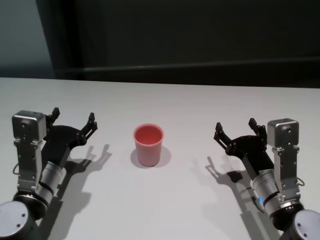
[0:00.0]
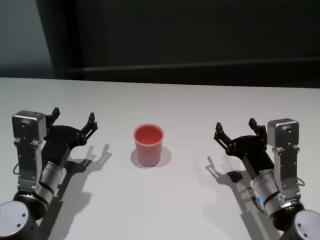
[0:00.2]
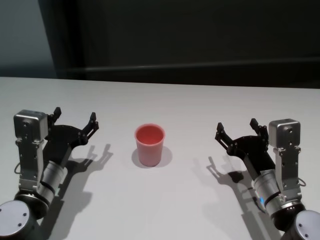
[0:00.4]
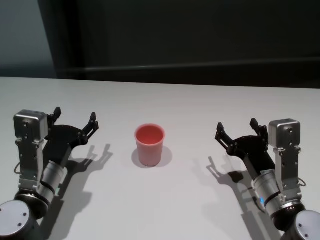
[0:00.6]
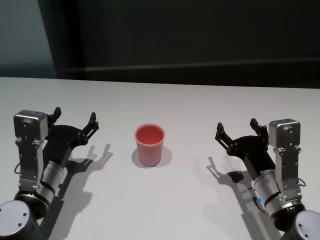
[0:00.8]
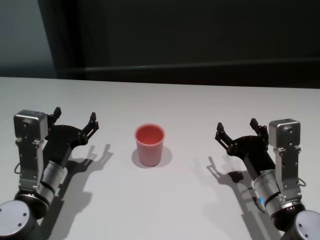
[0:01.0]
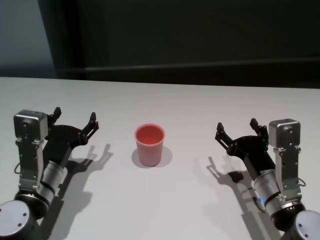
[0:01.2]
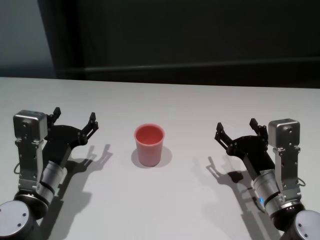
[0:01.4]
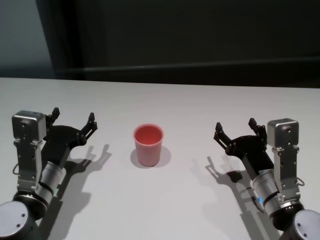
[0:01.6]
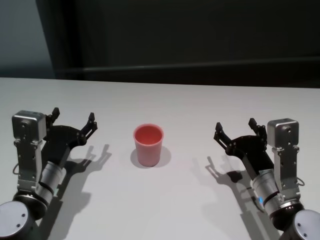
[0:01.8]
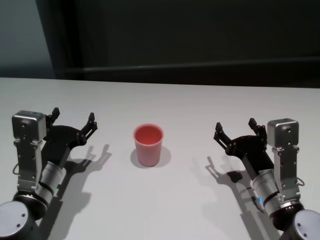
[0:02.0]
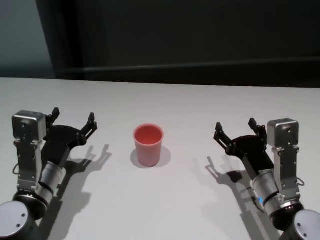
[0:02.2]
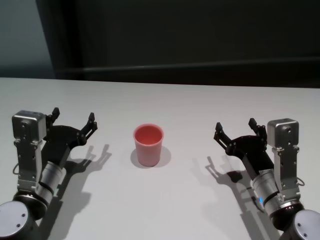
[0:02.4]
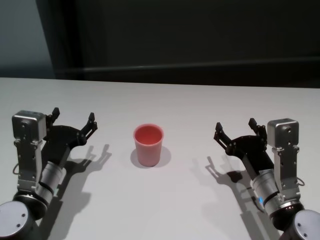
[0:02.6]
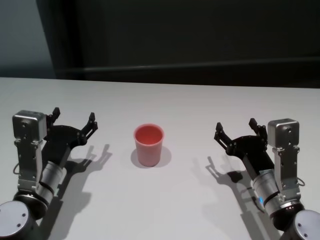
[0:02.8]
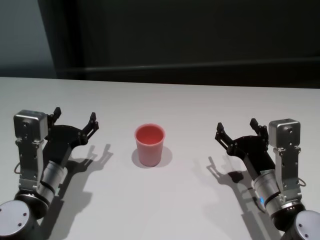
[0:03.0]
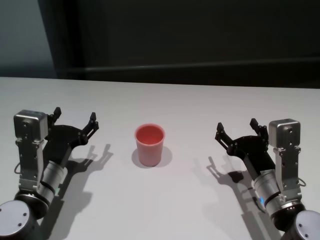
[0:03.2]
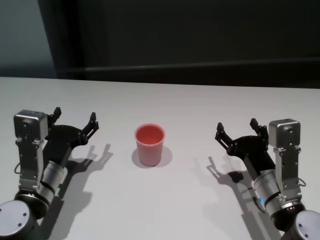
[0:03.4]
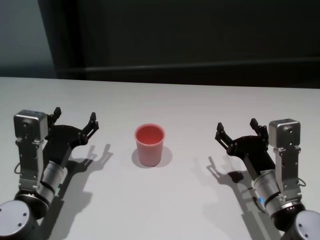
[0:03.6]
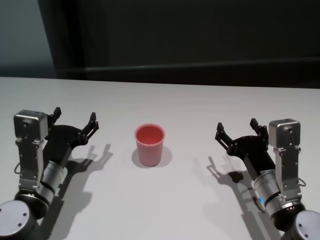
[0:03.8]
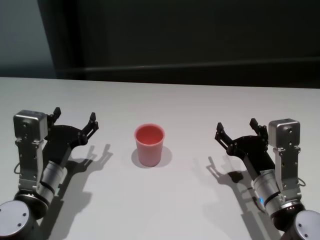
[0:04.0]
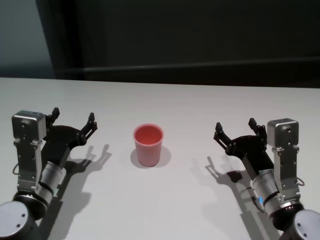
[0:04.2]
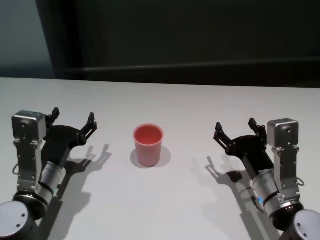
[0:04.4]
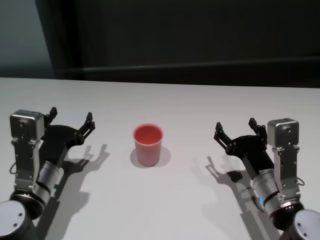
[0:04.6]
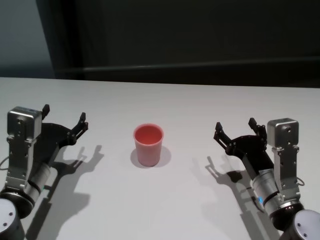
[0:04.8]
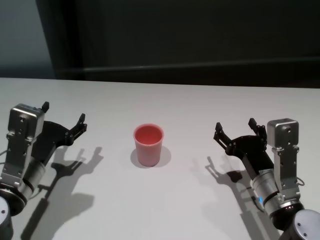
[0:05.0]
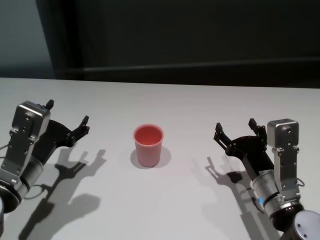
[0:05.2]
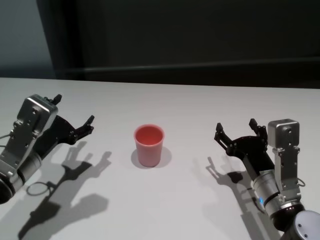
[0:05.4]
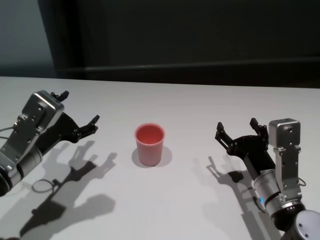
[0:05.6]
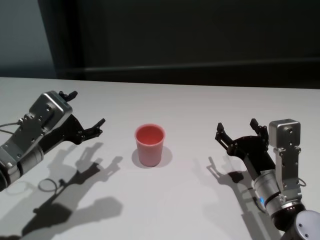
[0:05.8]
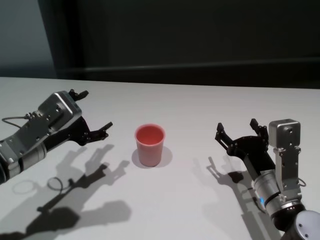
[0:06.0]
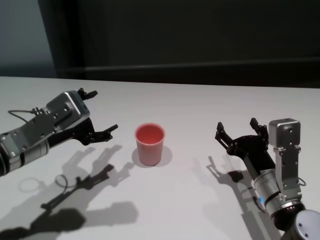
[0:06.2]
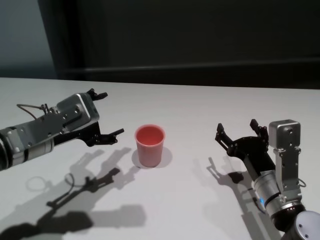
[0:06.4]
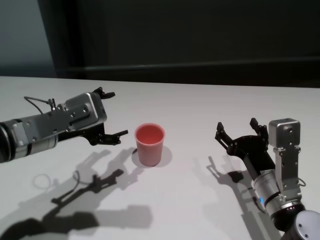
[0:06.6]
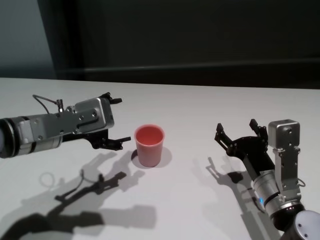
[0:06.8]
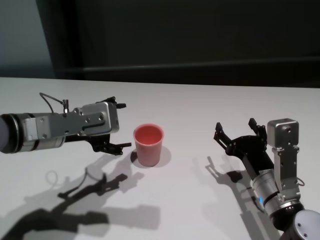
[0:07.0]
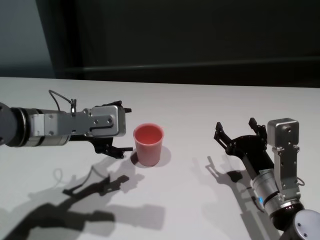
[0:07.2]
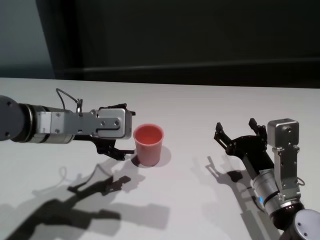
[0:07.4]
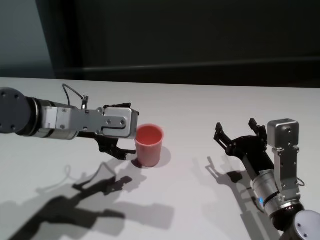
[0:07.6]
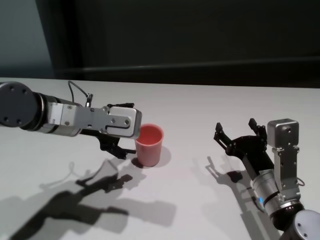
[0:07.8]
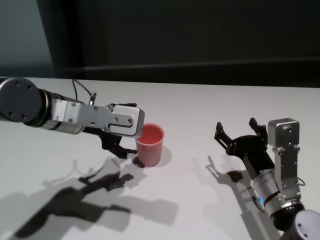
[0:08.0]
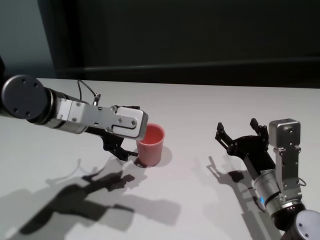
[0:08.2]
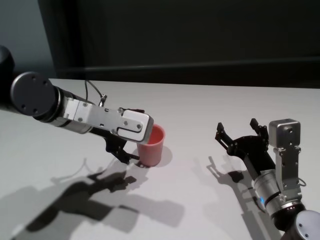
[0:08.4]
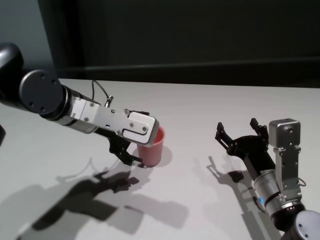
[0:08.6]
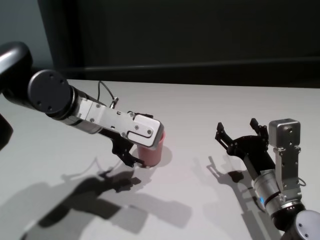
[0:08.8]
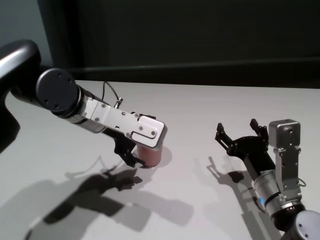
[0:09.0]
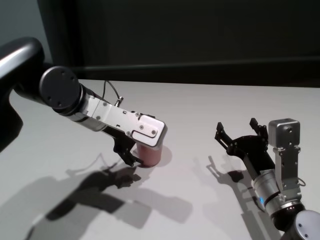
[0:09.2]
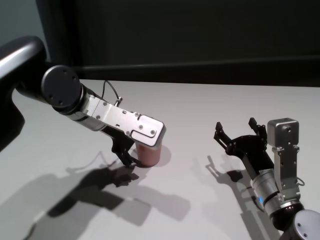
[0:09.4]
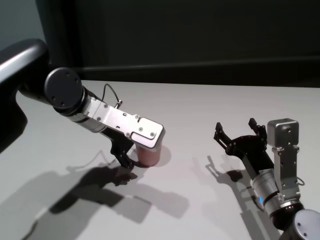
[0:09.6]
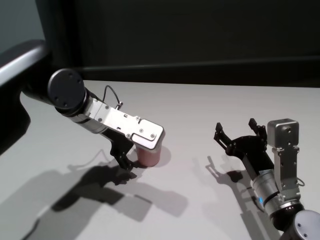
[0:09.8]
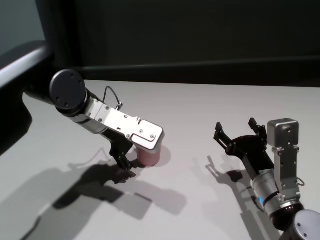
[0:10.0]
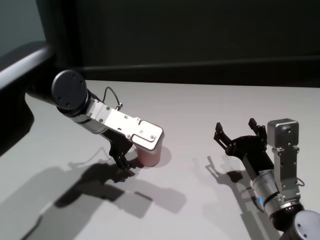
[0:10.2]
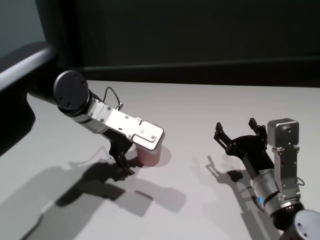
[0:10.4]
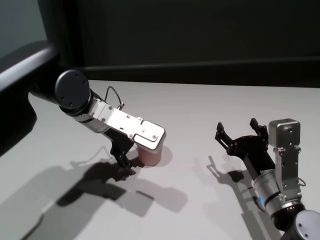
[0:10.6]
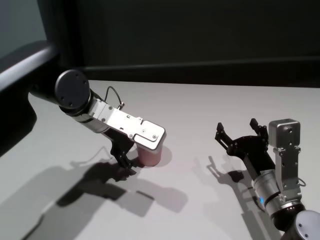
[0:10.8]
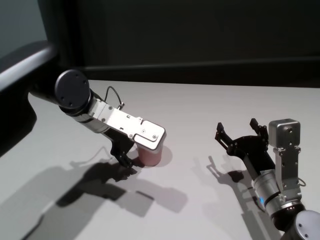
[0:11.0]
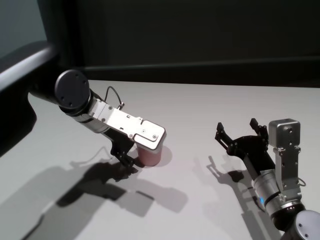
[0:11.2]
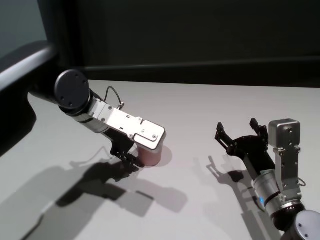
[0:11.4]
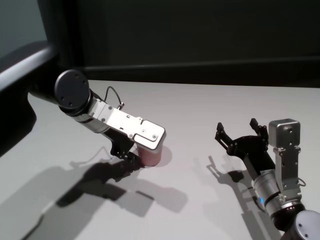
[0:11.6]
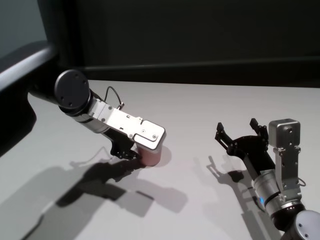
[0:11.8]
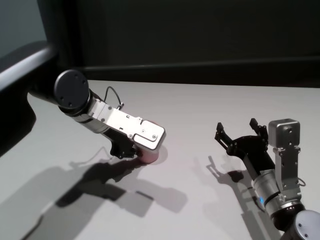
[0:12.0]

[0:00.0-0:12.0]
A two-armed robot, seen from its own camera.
Task of the whole recording: On the white table pick up the cup with one hand and transfer it to the other hand before turning it over.
Step, 0:00.0 to 0:11.8: Grasp the cup with left gripper.

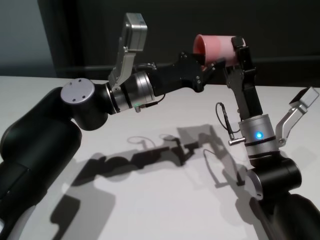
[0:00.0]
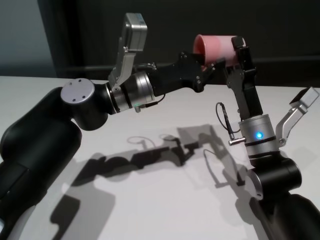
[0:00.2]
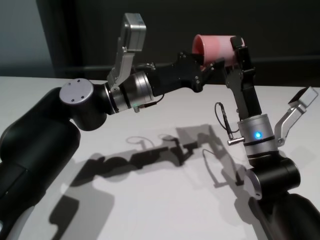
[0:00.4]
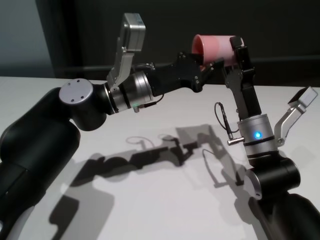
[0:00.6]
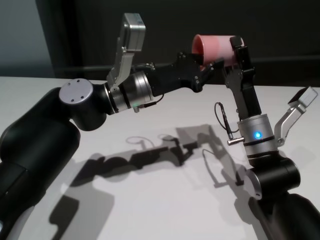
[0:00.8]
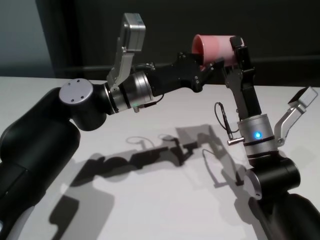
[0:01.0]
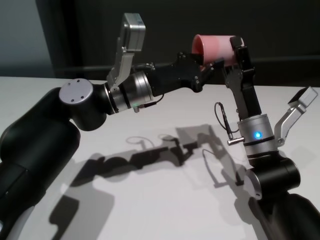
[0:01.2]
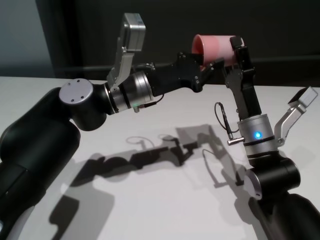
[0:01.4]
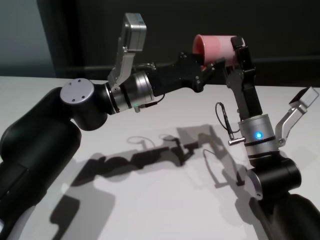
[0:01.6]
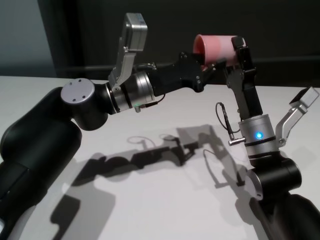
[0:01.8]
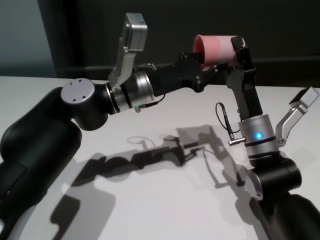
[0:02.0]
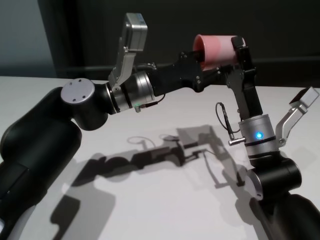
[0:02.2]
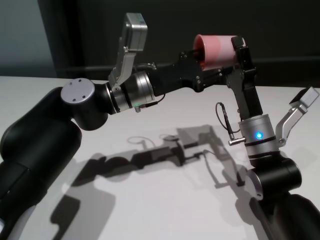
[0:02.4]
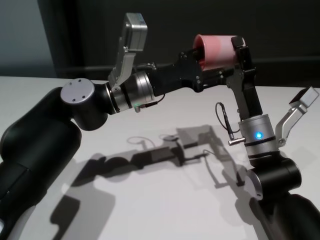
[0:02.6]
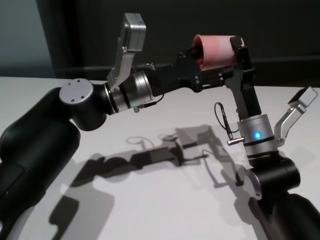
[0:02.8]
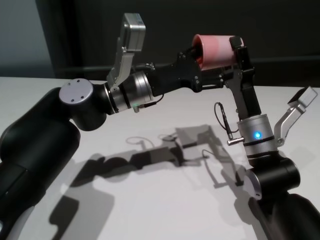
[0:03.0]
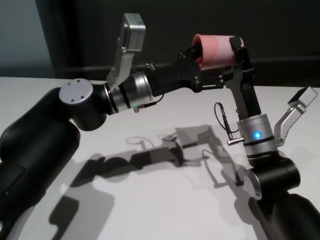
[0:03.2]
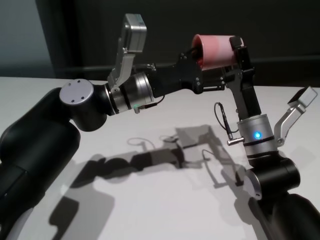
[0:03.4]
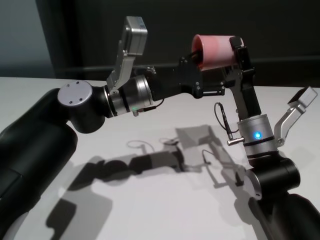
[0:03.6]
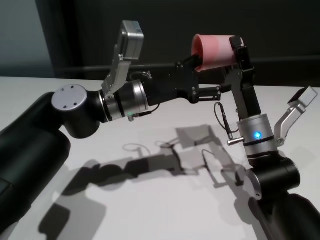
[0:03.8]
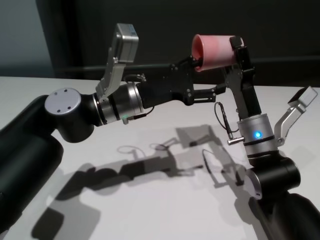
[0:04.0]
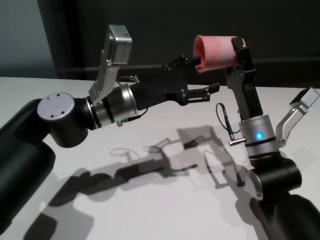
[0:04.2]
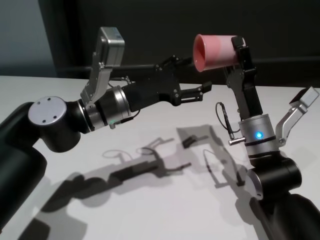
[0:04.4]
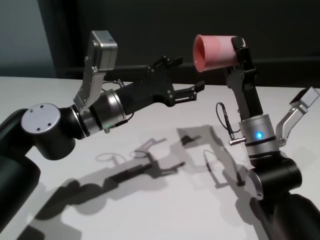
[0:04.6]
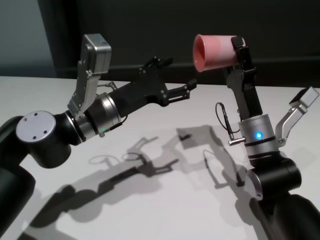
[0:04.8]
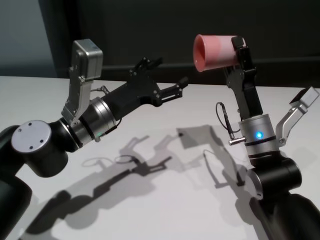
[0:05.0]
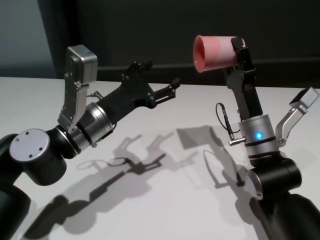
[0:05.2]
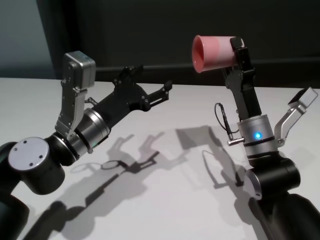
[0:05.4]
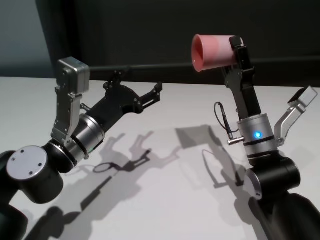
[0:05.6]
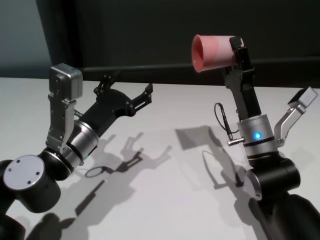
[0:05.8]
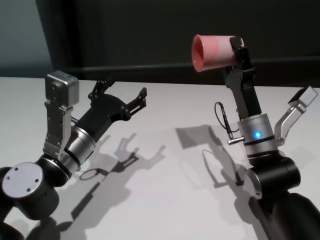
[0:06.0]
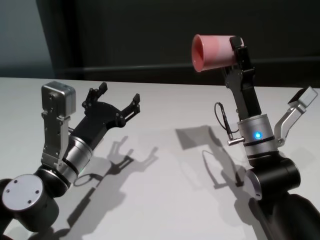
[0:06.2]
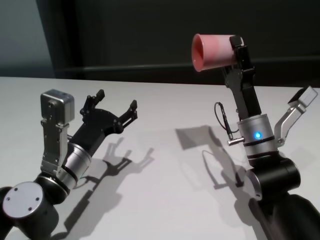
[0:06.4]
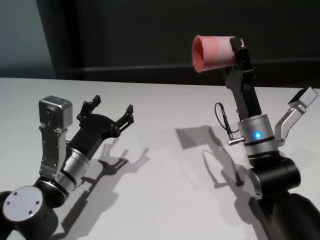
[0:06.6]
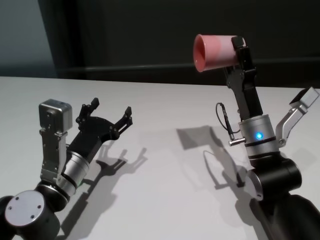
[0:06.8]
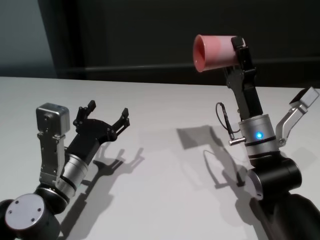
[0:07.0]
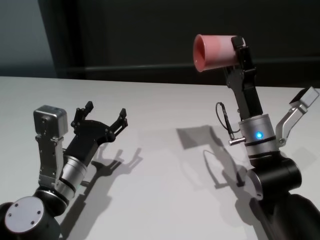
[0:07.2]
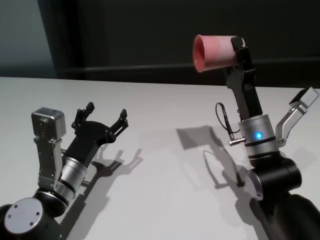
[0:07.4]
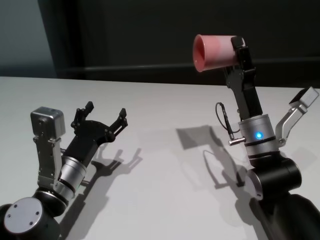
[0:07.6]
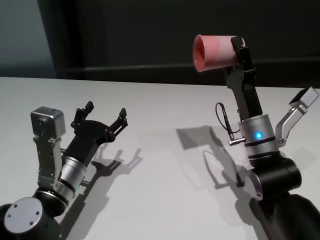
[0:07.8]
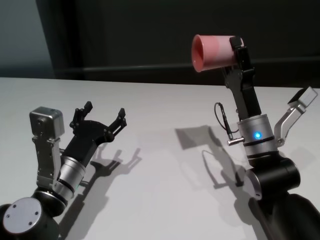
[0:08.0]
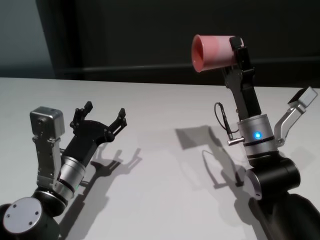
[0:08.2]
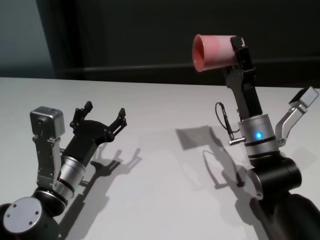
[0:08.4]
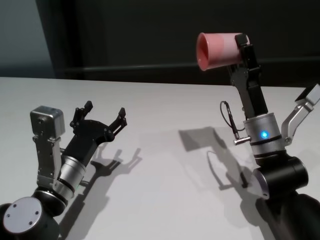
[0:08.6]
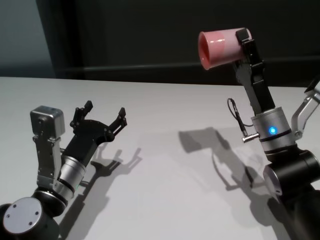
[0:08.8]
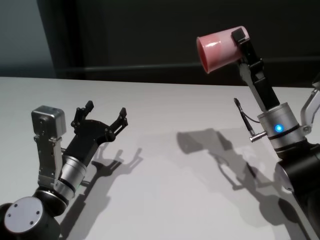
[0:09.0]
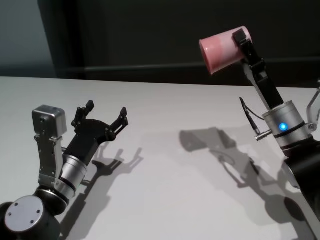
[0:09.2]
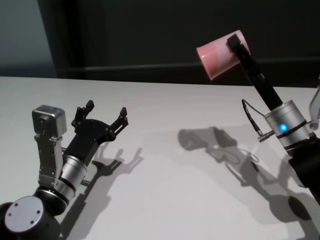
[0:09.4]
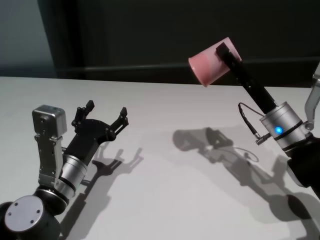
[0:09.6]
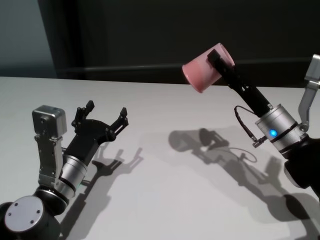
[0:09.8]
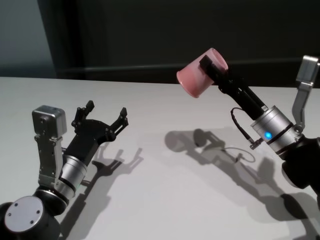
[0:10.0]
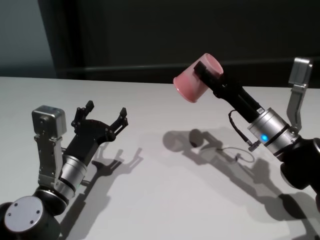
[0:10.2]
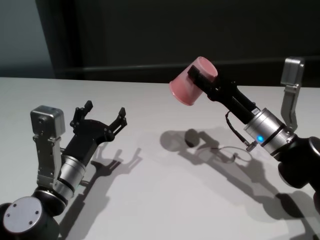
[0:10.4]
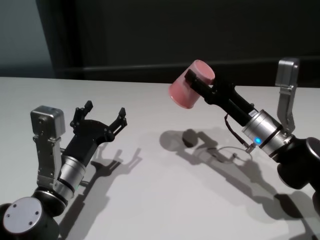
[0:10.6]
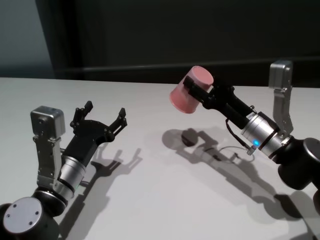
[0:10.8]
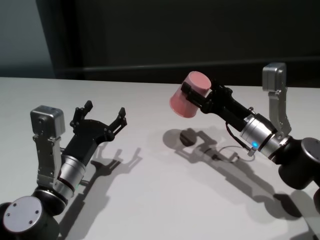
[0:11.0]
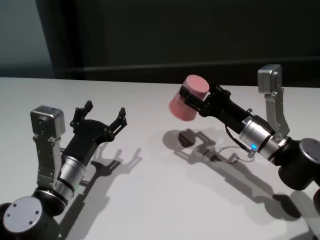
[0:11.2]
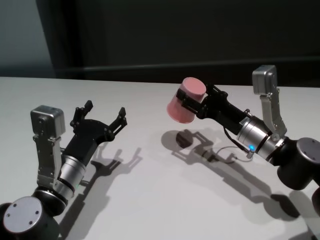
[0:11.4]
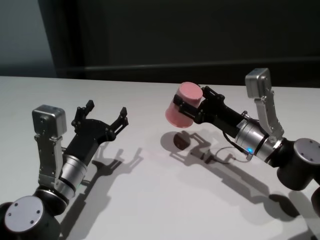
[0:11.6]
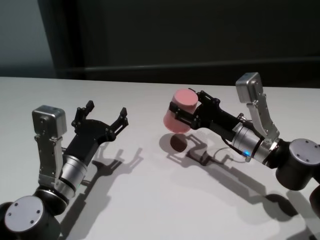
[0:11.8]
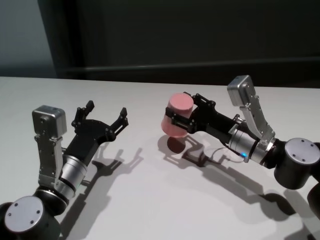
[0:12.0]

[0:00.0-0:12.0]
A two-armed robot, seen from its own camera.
Task of the whole recording: On the white table pick up the cup with one hand and transfer it to the other hand before turning it over.
Step, 0:00.0 to 0:04.6: Pass the cup to the right gripper.
